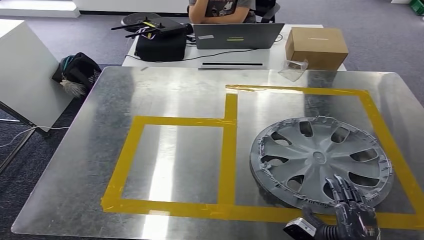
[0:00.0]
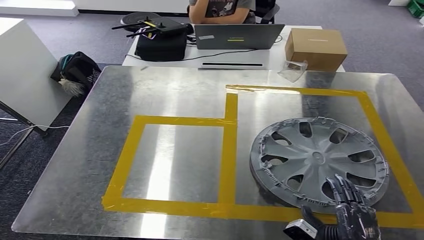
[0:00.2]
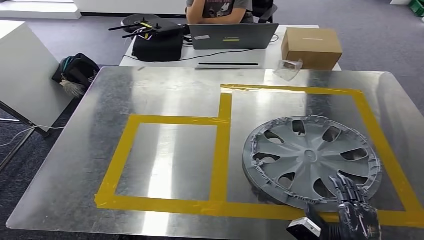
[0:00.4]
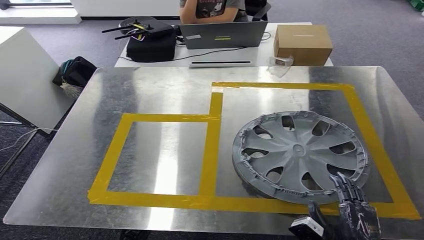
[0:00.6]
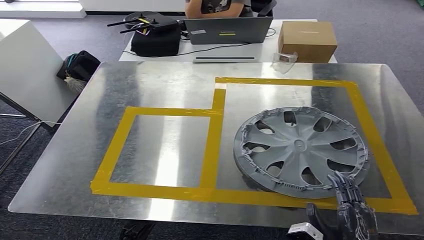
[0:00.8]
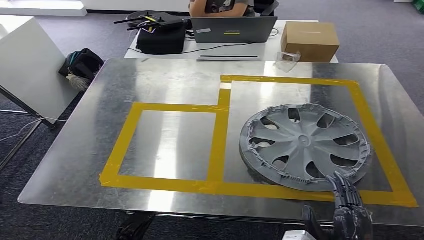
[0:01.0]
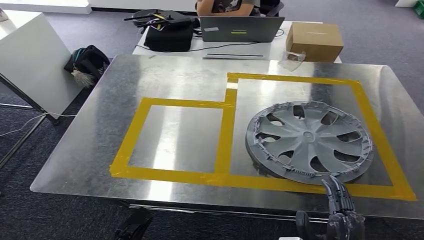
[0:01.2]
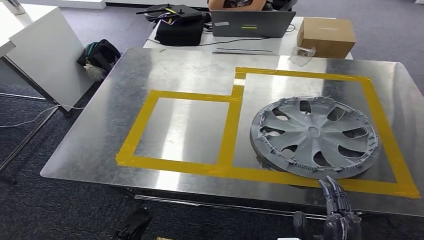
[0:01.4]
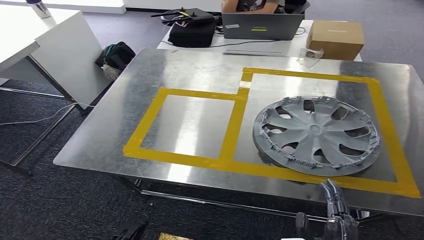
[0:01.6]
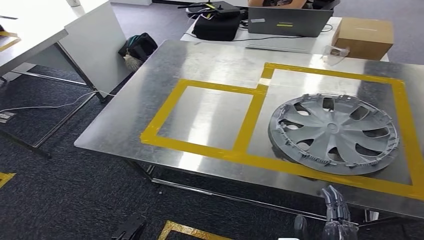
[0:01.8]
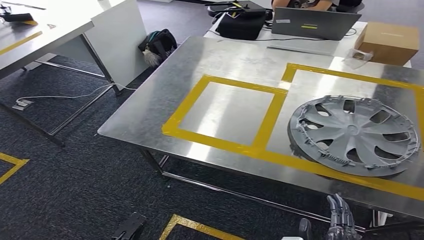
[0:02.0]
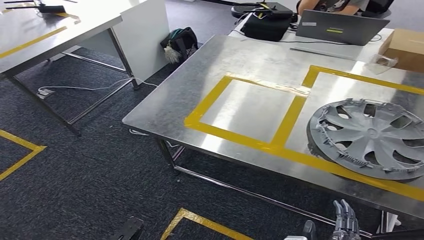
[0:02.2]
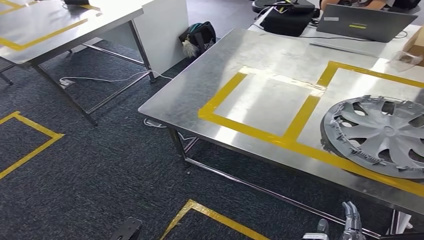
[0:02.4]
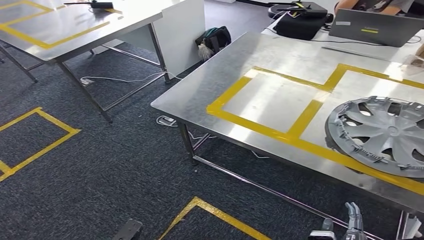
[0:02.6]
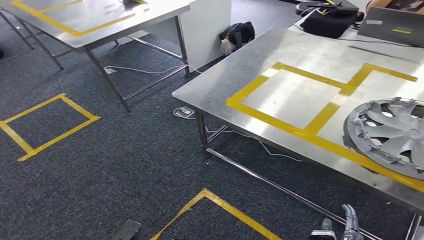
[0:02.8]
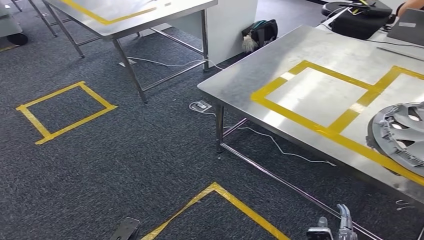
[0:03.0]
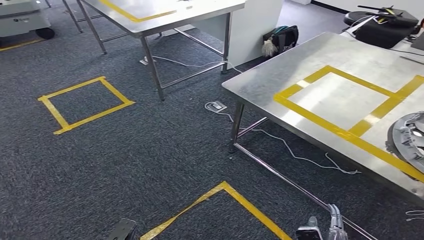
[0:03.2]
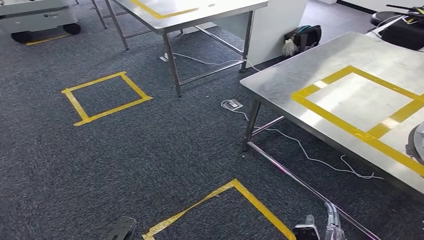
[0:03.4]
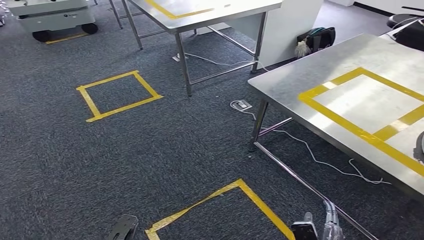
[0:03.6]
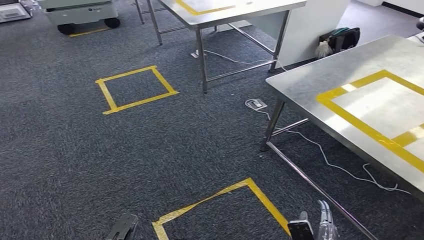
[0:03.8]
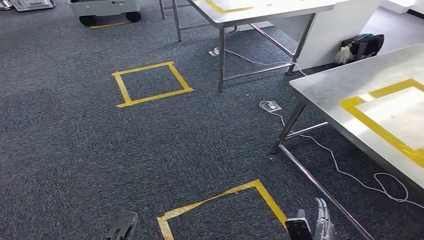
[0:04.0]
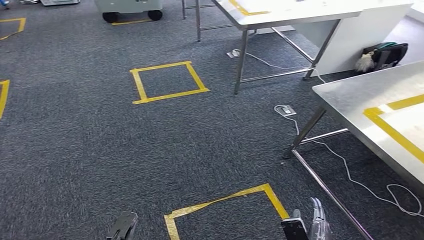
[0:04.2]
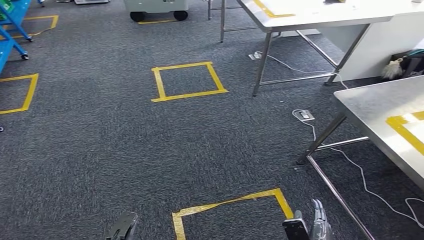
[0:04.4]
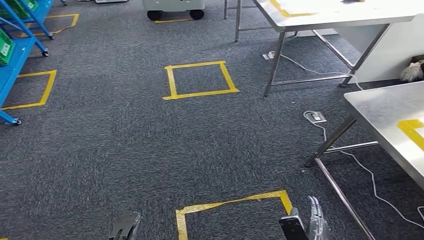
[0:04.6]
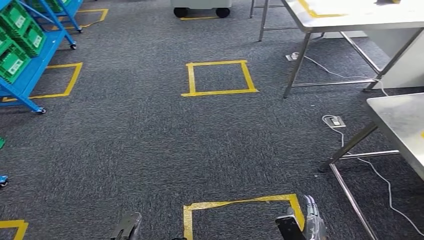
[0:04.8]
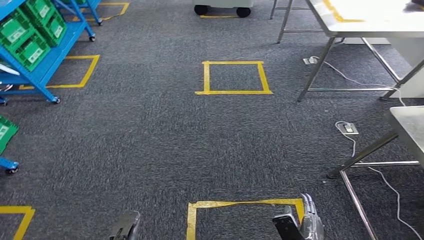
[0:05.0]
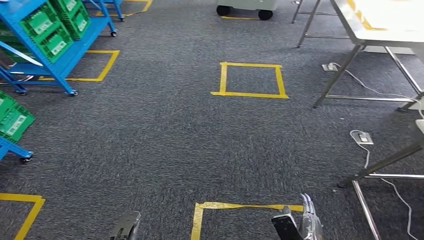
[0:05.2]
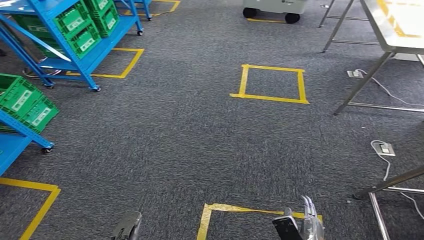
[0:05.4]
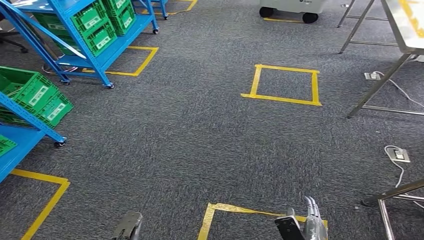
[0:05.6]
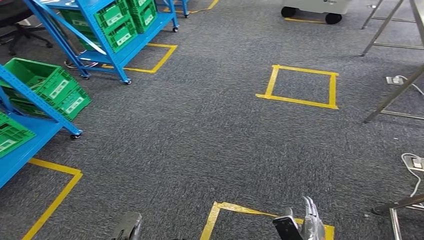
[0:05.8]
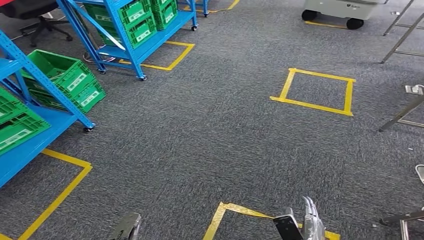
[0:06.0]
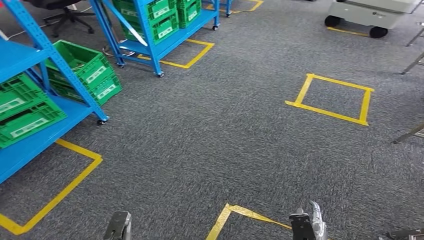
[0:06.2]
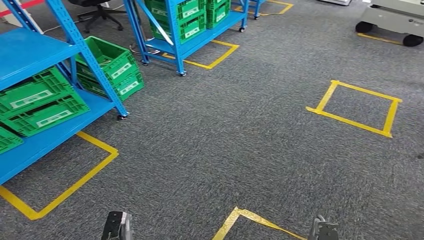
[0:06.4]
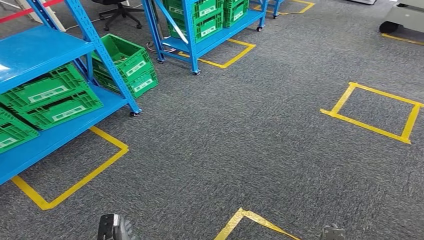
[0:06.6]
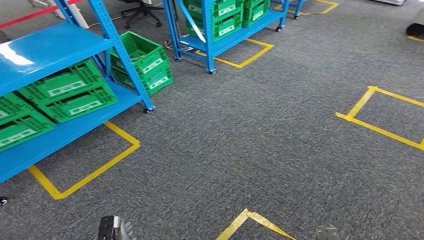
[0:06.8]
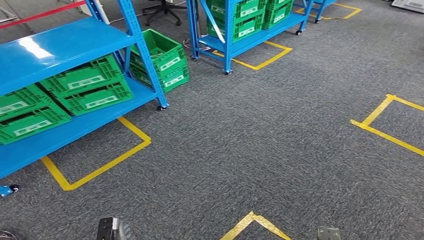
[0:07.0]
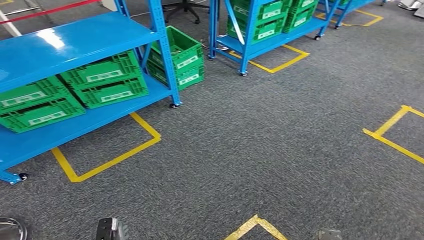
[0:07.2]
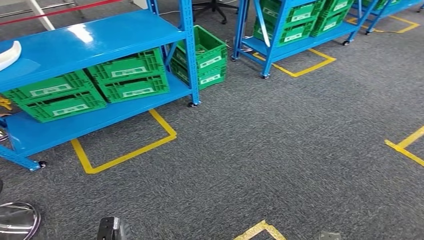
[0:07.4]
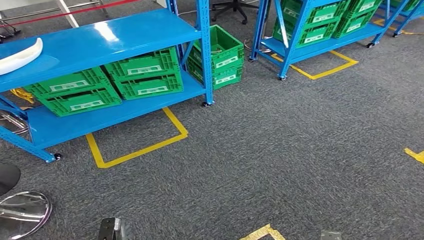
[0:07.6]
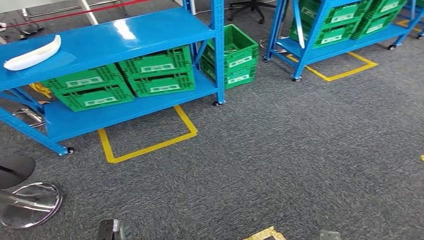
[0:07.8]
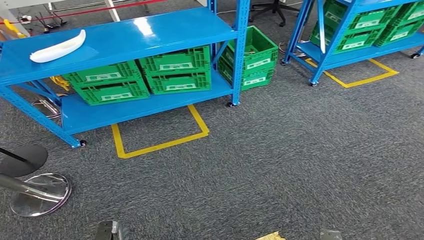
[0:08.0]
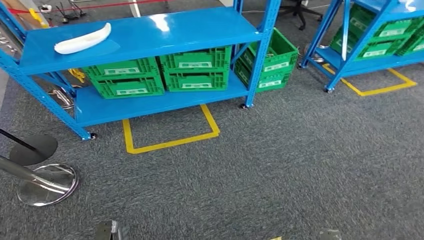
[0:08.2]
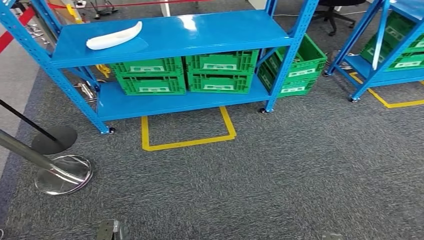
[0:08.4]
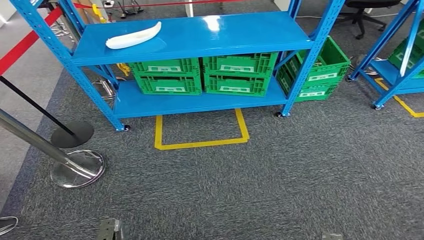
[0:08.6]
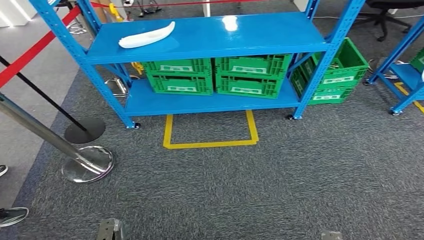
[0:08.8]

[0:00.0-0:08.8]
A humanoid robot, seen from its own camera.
Step, 0:01.4 to 0:08.8: Move to the initial position at the workbench.
